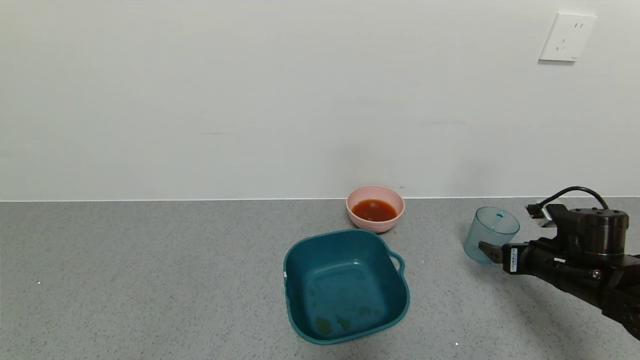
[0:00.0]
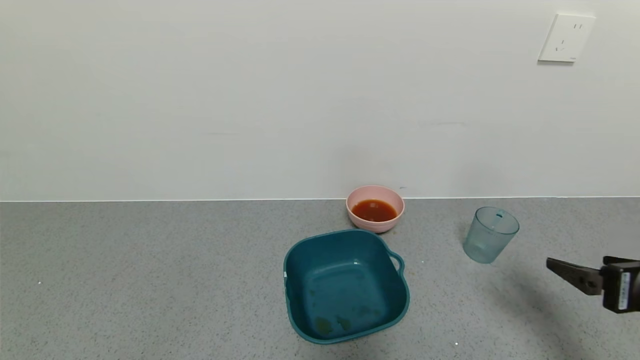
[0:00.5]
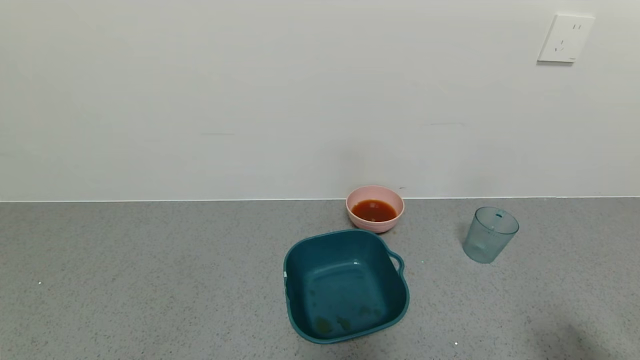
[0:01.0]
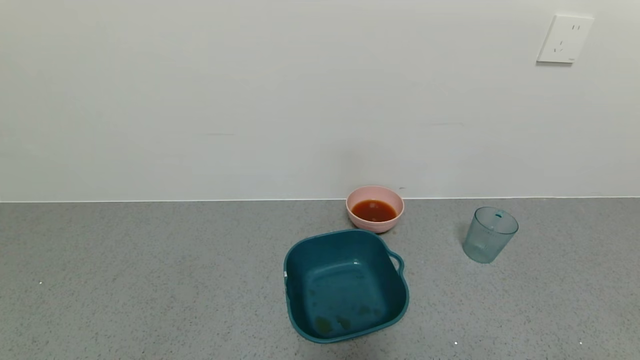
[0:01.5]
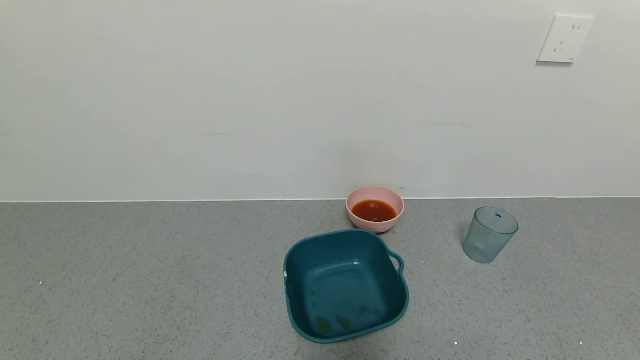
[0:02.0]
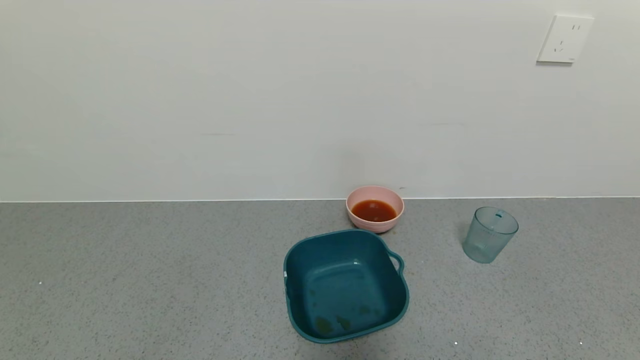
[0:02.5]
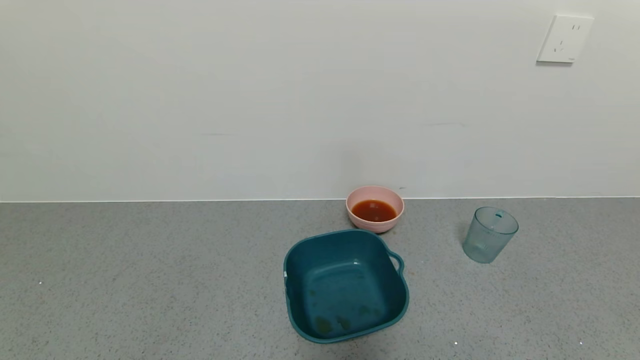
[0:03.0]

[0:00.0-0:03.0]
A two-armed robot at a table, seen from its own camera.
Task of the whole recording: use a gripper to pick up the cup and pour the liquid into a bowl or tray.
0:00.0 to 0:01.5: The right gripper heads backward, covering some 35 cm.

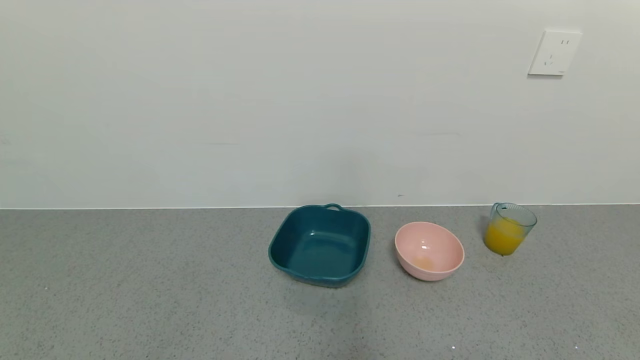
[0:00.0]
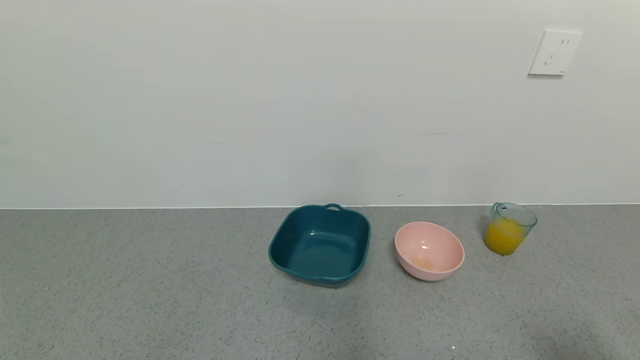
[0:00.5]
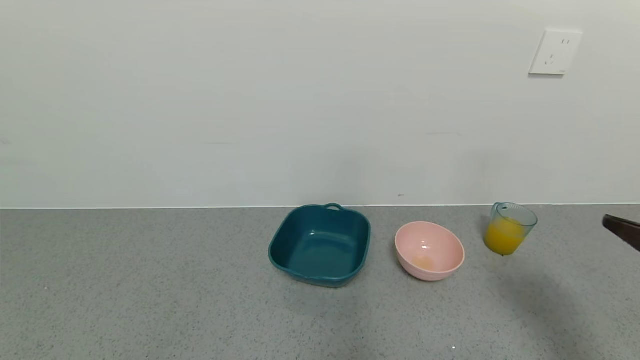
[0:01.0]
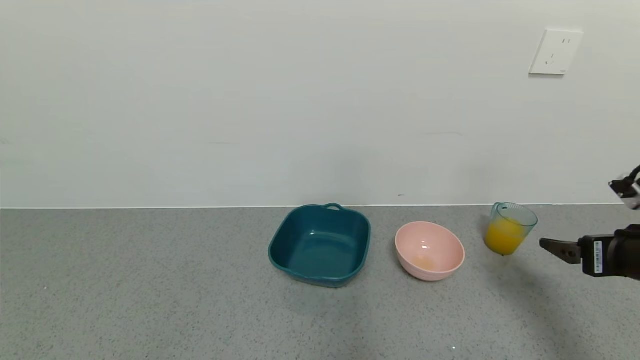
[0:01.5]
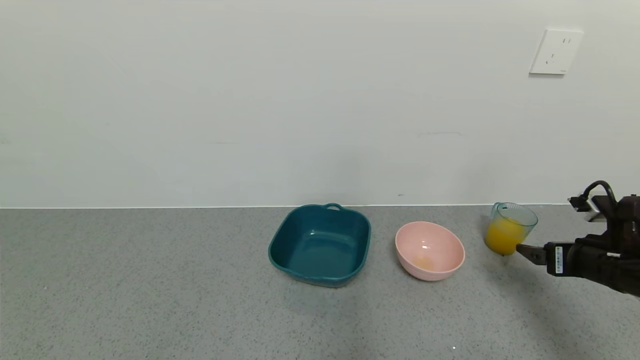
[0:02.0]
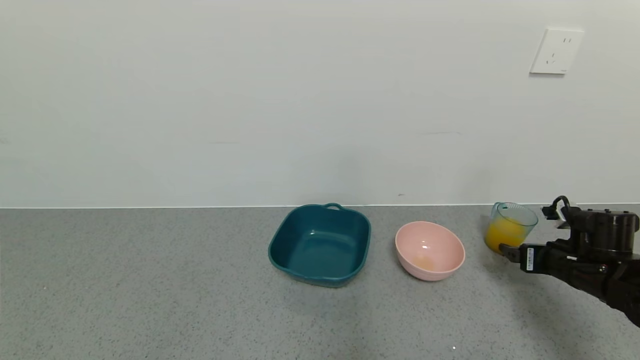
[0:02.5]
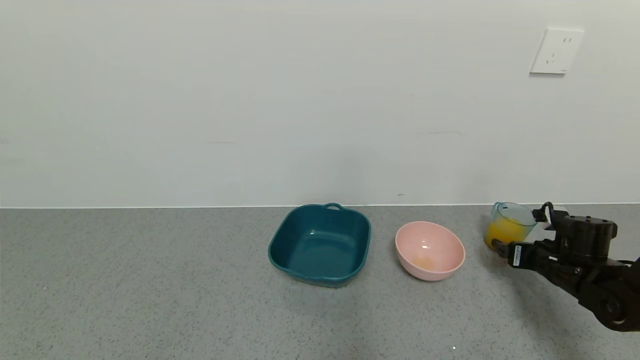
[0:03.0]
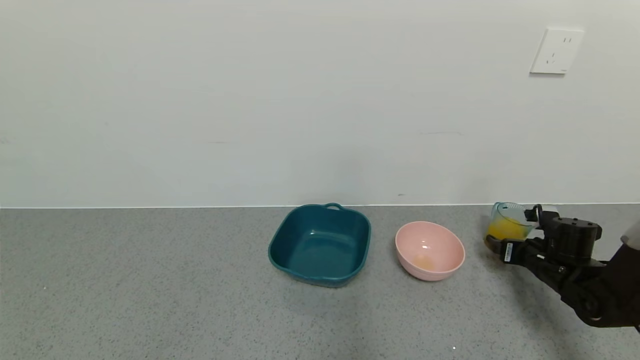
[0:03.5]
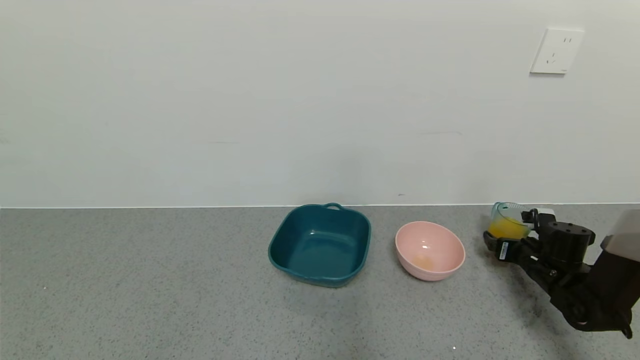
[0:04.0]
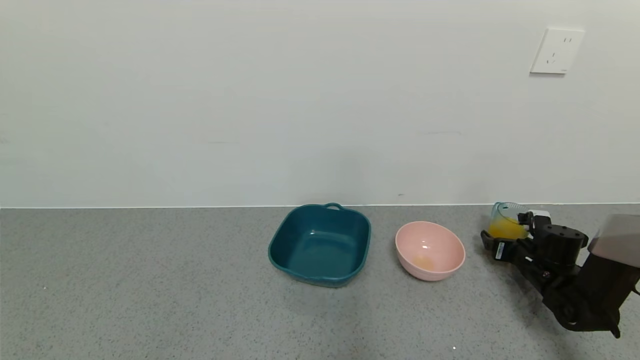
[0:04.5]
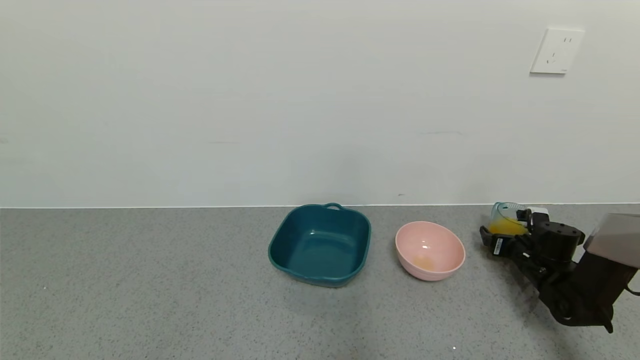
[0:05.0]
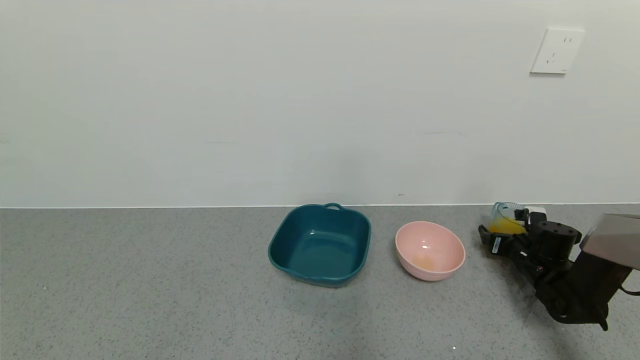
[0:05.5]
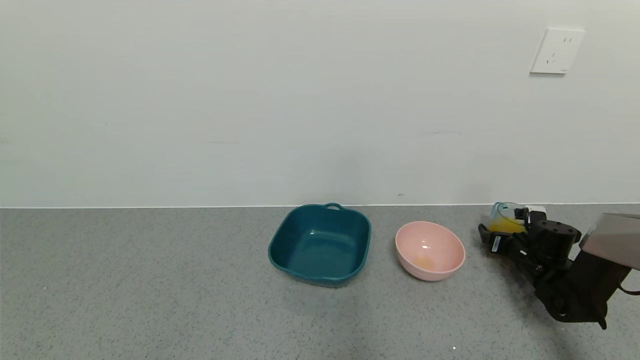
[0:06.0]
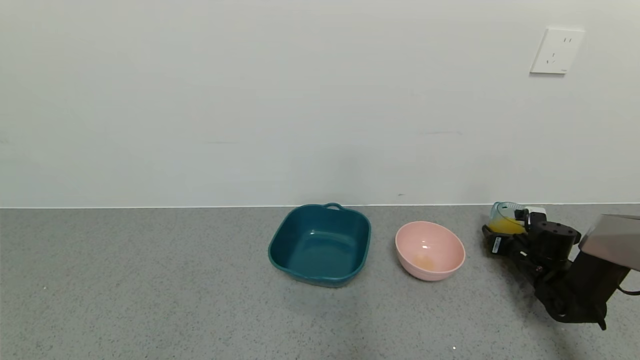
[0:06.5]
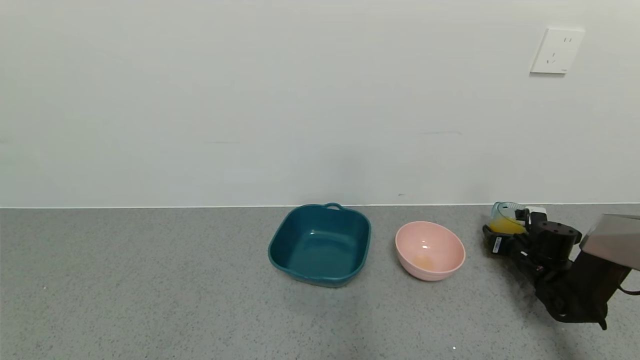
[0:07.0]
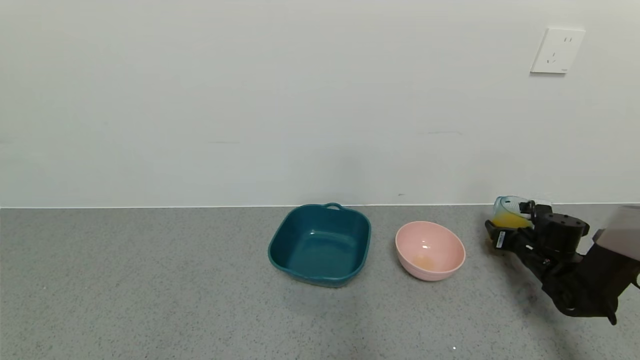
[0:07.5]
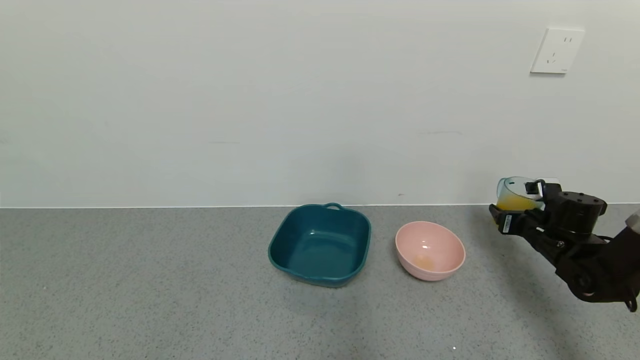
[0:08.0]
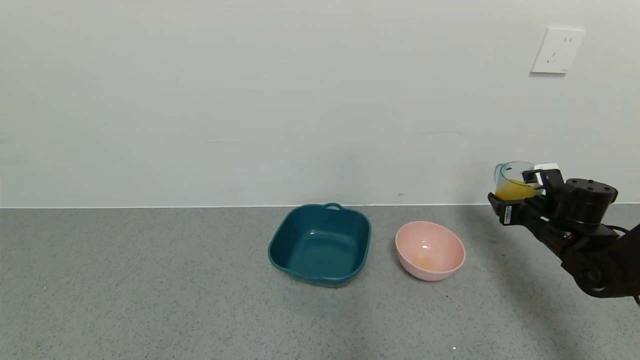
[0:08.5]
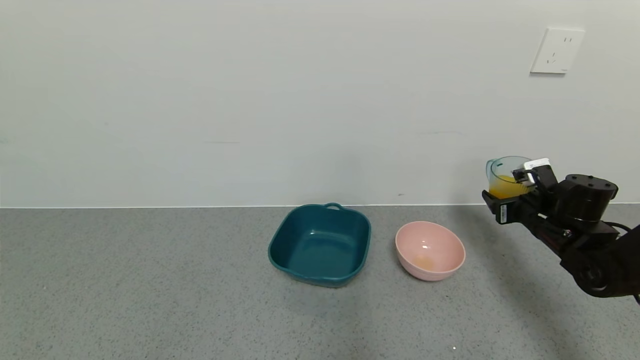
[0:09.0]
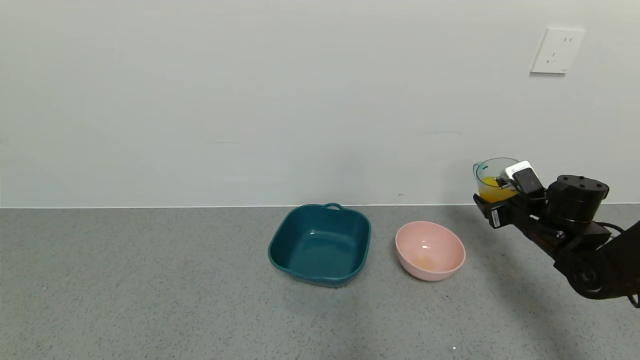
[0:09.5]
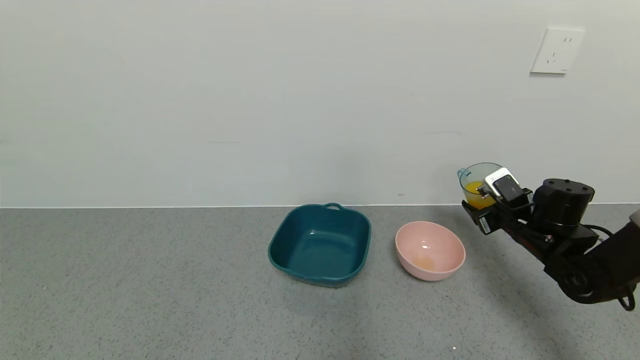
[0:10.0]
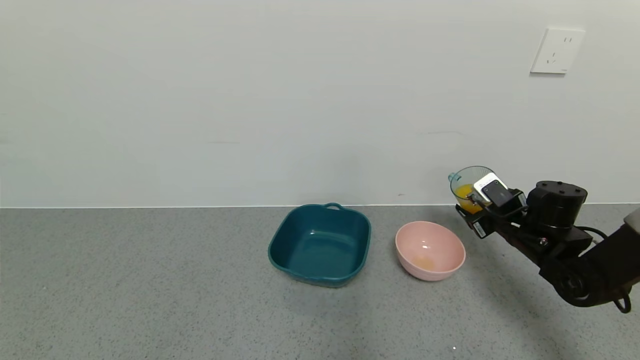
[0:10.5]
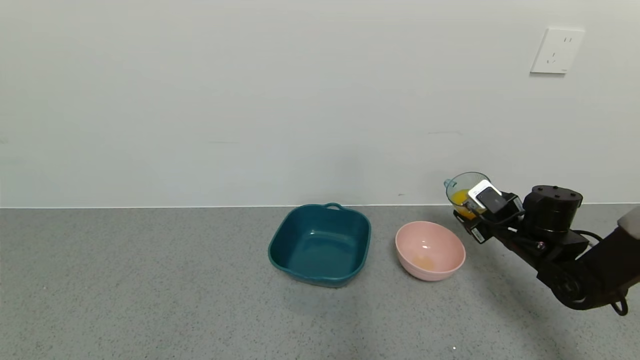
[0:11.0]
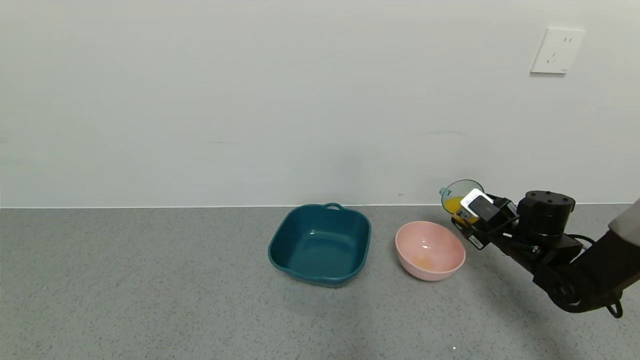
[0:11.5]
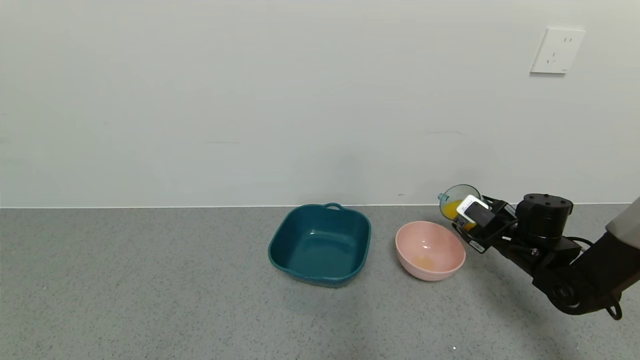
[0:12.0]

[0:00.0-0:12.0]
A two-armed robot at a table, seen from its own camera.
Task of the whole recording: use a gripper to pick up the cup and pour the liquid into a bowl or tray.
Step, 0:00.0 to 0:07.0: Grasp the glass of orange juice with the right gripper.
0:00.0 to 0:02.0: The right gripper moves forward, about 30 cm.
0:02.0 to 0:04.0: The right gripper travels downward and forward by approximately 15 cm.
0:04.0 to 0:06.0: The grippers make only small movements.
0:06.0 to 0:08.0: The right gripper moves upward, roughly 5 cm, and closes its fingers.
0:08.0 to 0:10.0: The right gripper shifts roughly 5 cm to the left.

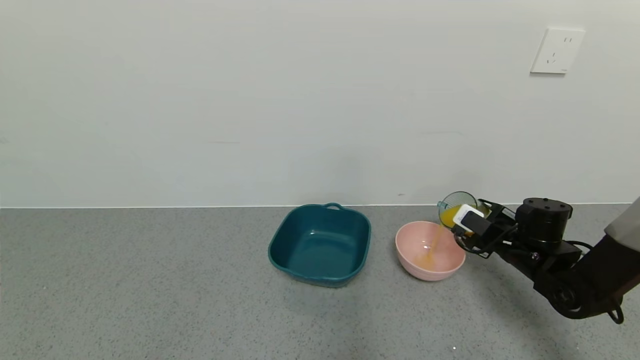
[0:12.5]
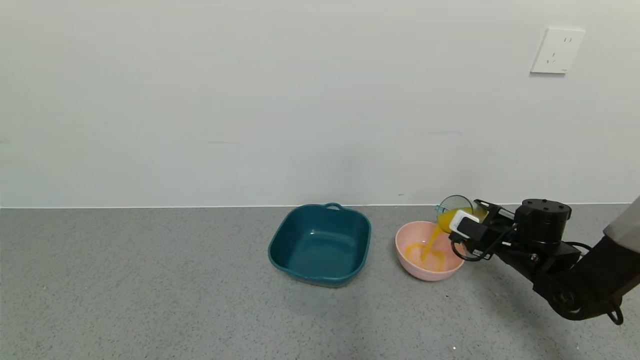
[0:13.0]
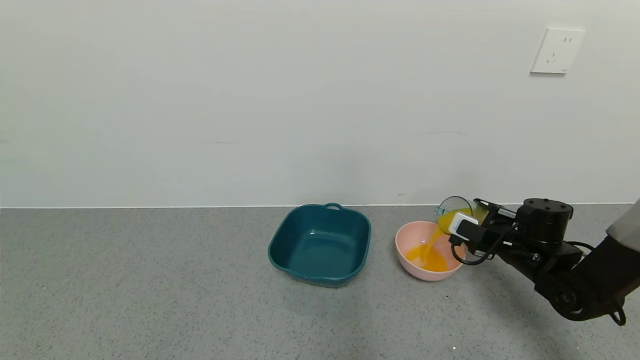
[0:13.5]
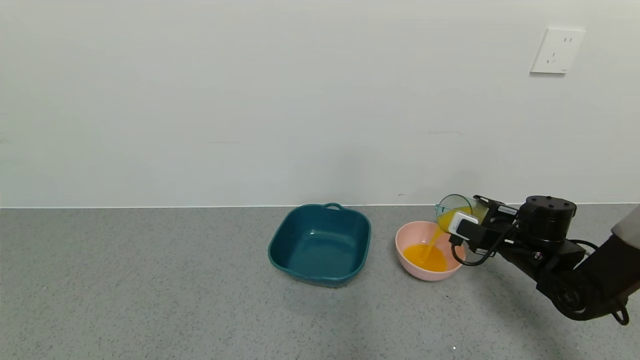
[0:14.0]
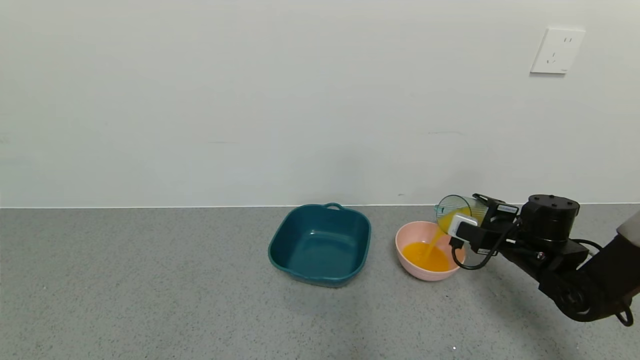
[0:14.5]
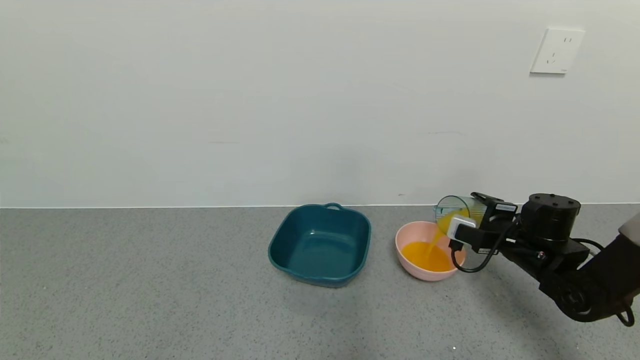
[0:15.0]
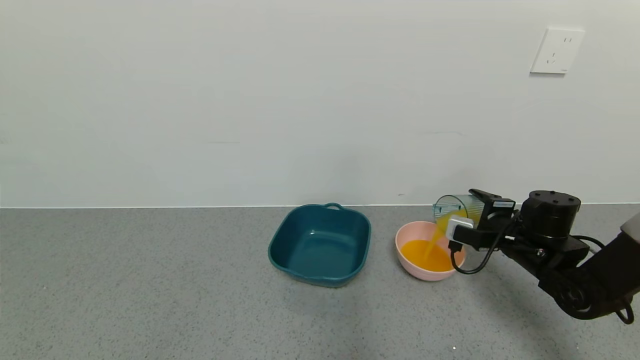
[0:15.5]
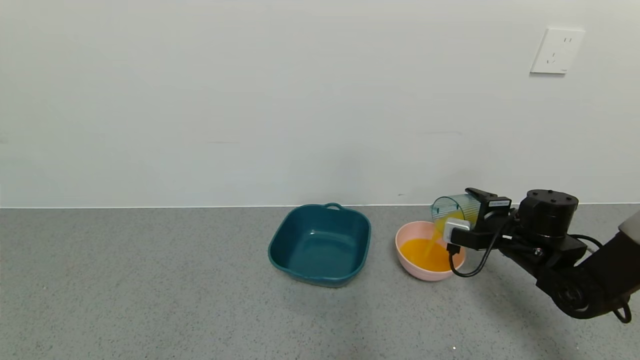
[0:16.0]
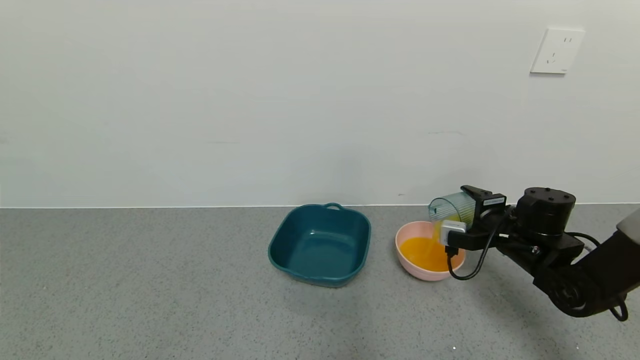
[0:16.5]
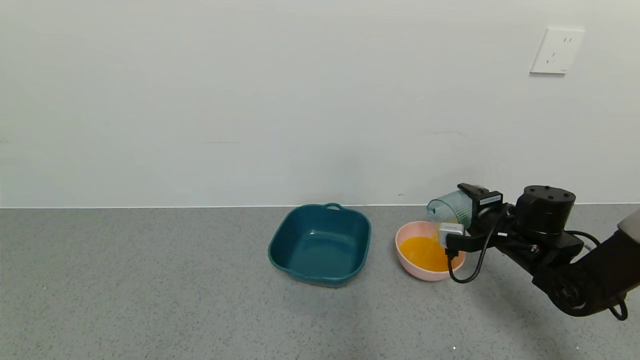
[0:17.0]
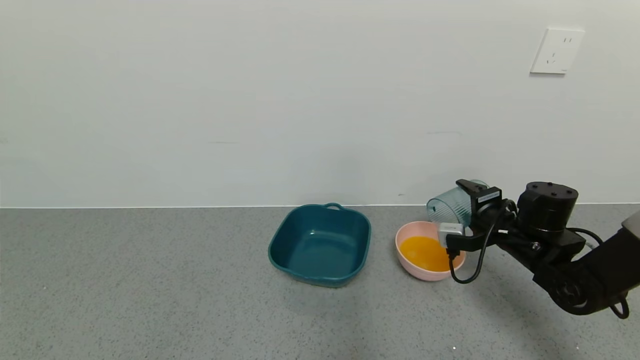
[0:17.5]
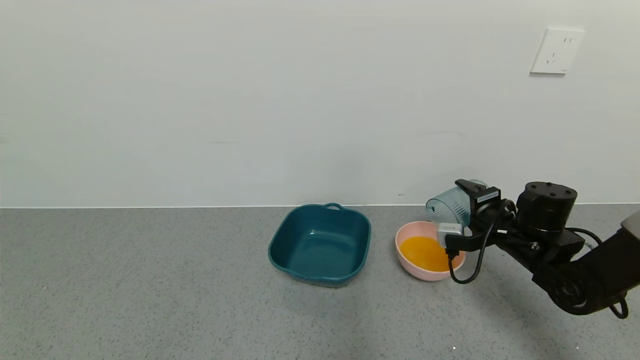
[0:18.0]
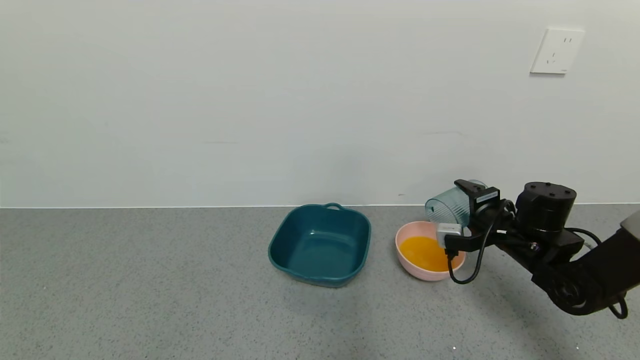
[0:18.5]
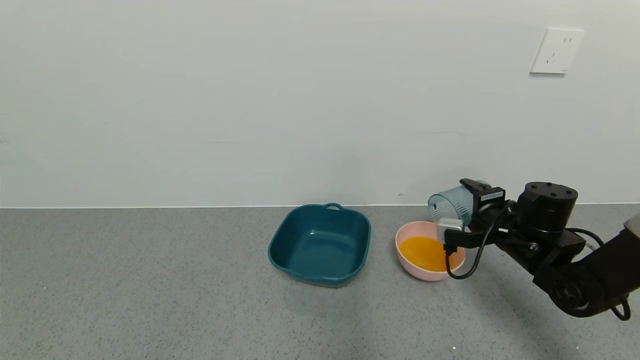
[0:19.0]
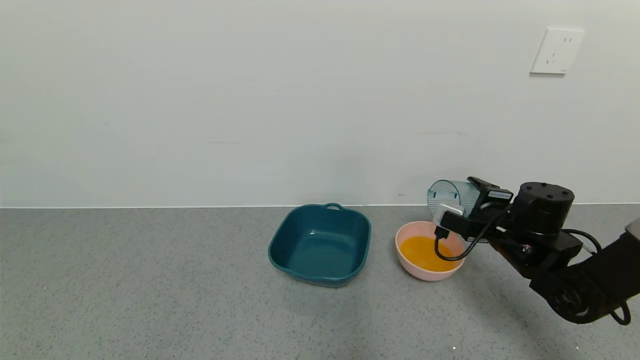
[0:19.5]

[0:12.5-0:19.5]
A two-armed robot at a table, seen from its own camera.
Task of the whole recording: use a gripper to pick up the cup and pour the liquid into a bowl or tray.
Step, 0:12.5 to 0:19.0: Pour the orange juice into the pink bowl with the right gripper.
0:12.5 to 0:14.5: There are only small adjustments of the grippers.
0:14.5 to 0:16.0: There are only small adjustments of the grippers.
0:16.0 to 0:17.5: The grippers stay close to where they were, moving slightly.
